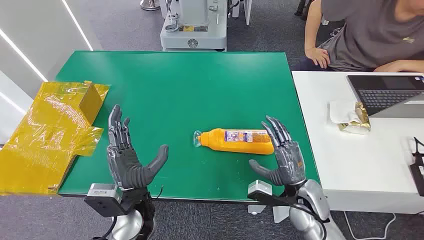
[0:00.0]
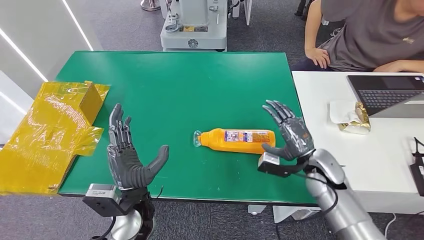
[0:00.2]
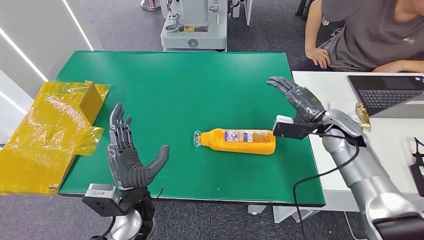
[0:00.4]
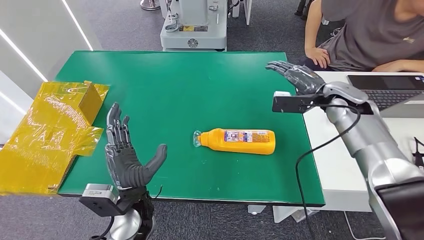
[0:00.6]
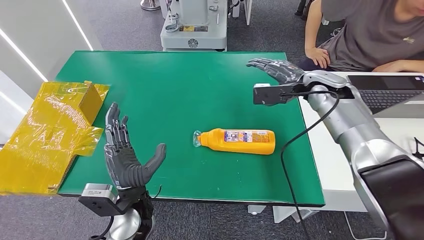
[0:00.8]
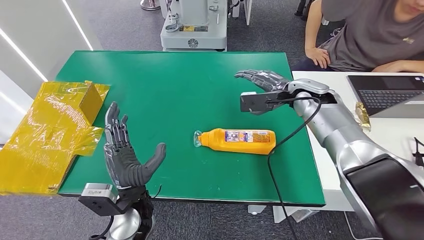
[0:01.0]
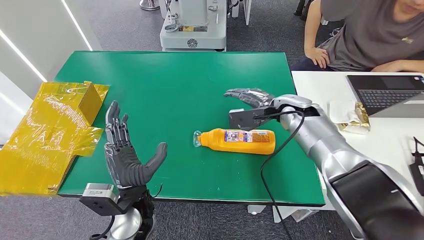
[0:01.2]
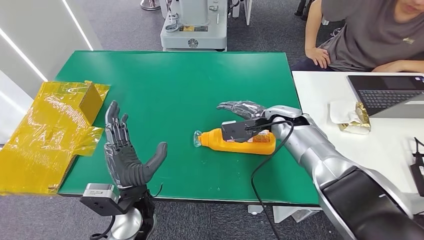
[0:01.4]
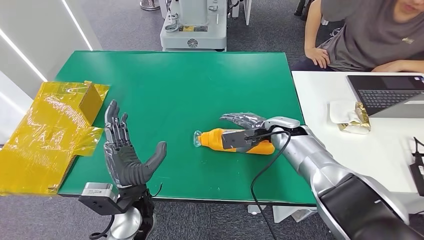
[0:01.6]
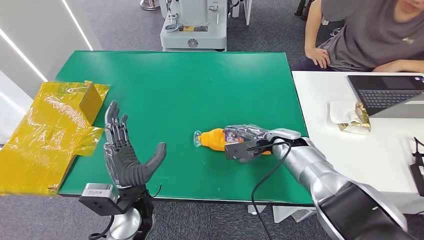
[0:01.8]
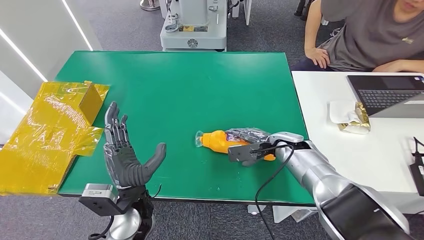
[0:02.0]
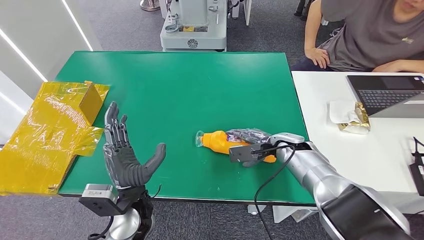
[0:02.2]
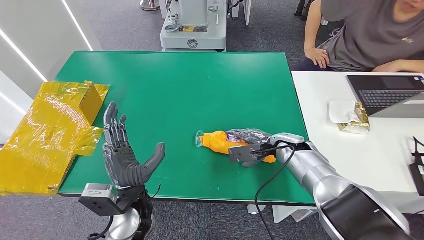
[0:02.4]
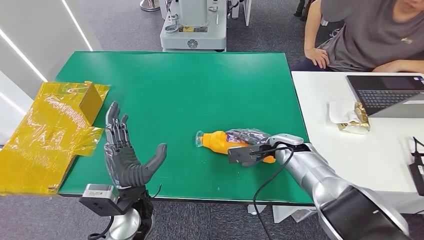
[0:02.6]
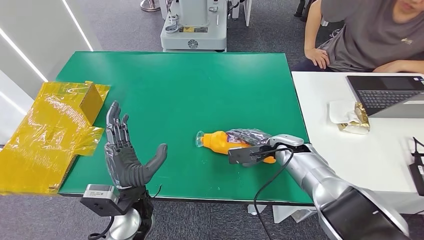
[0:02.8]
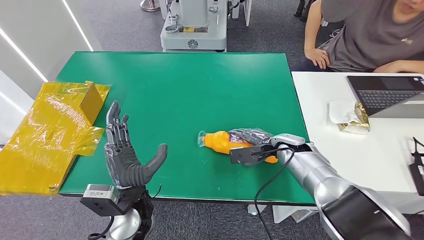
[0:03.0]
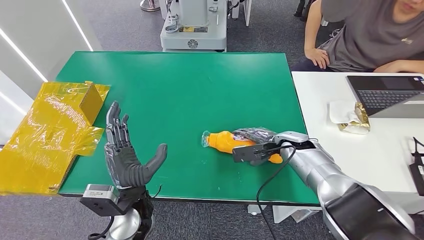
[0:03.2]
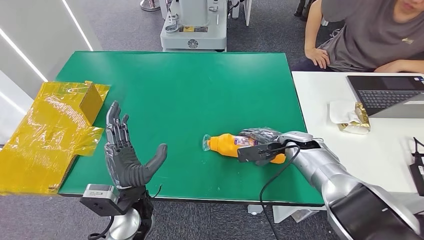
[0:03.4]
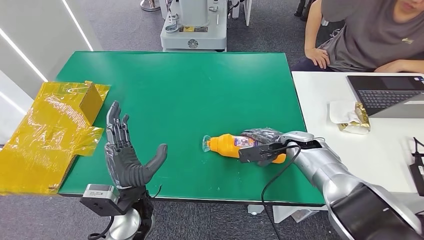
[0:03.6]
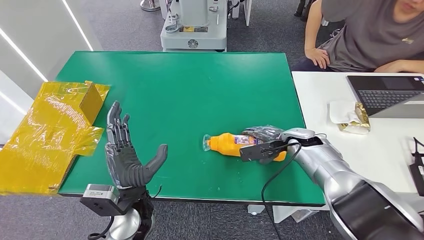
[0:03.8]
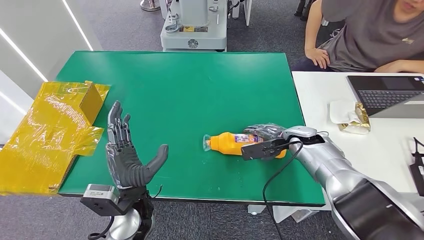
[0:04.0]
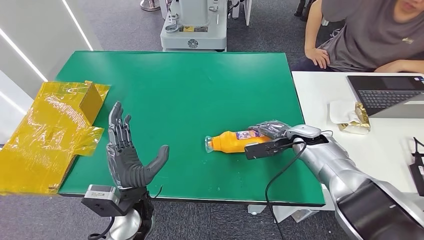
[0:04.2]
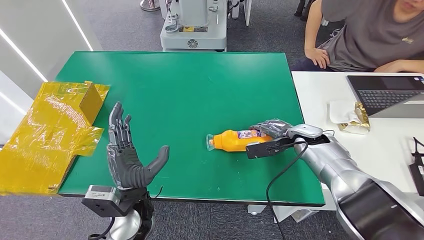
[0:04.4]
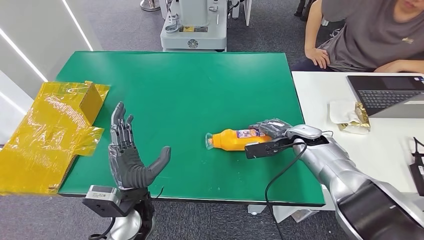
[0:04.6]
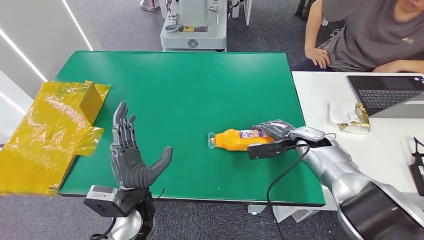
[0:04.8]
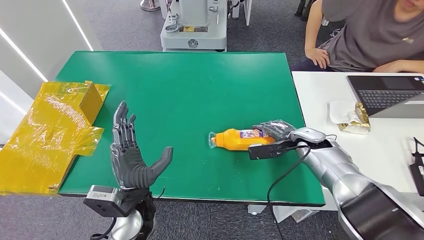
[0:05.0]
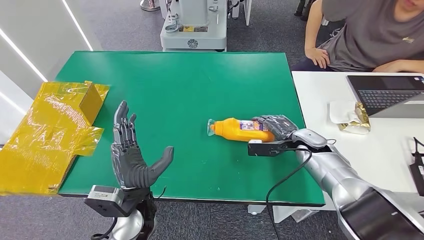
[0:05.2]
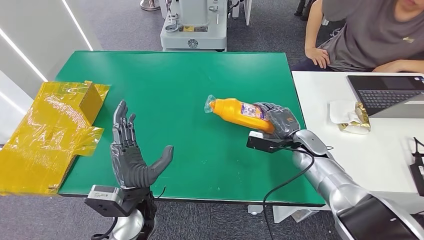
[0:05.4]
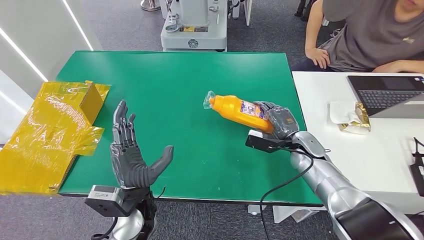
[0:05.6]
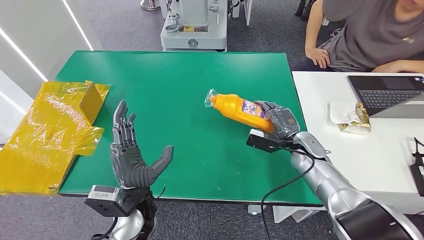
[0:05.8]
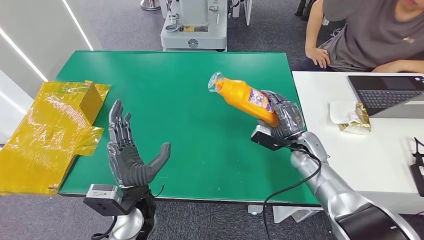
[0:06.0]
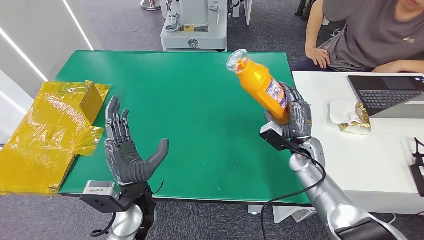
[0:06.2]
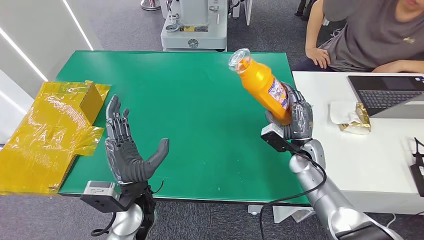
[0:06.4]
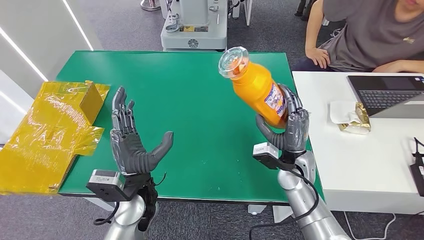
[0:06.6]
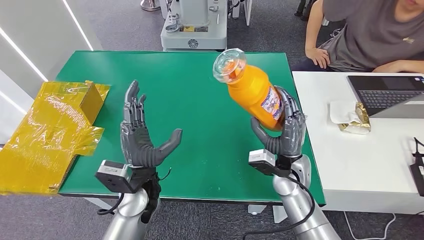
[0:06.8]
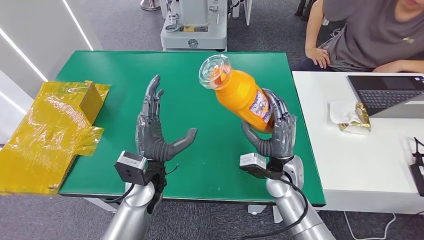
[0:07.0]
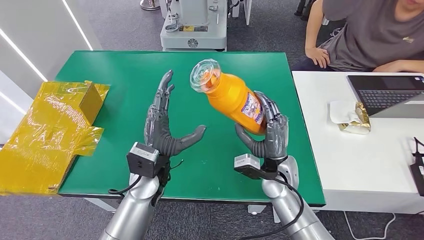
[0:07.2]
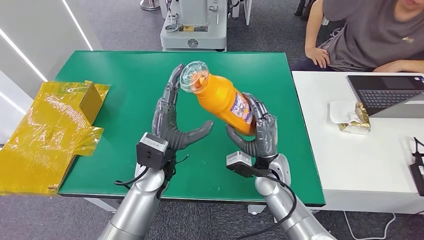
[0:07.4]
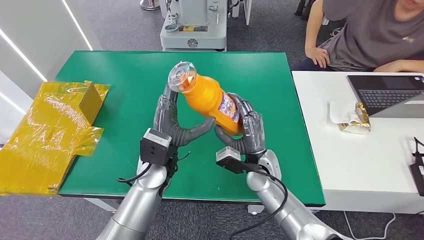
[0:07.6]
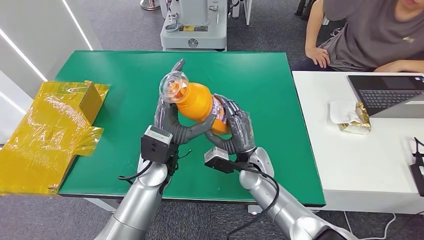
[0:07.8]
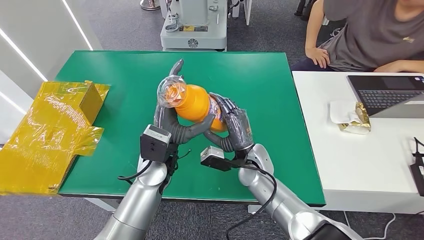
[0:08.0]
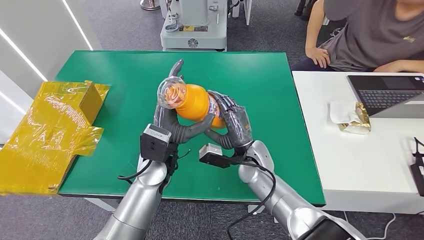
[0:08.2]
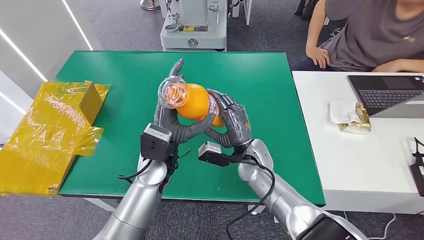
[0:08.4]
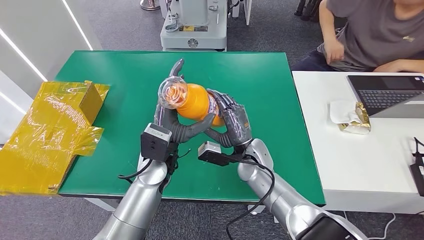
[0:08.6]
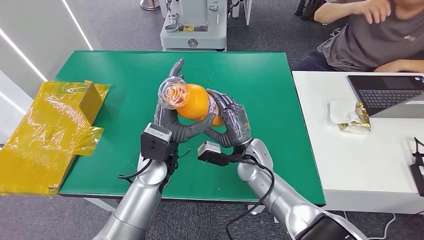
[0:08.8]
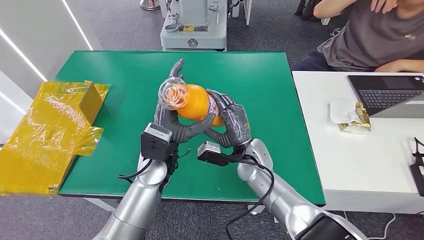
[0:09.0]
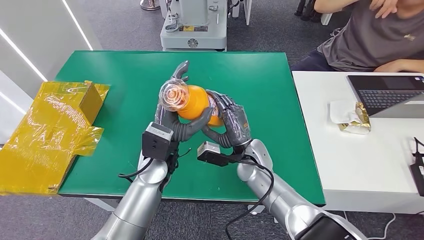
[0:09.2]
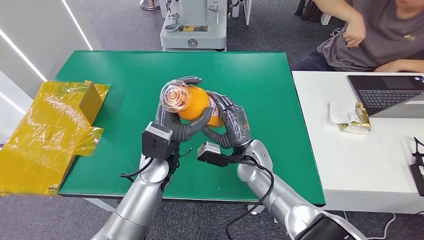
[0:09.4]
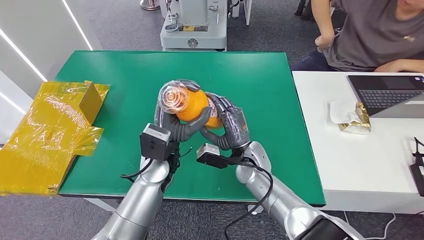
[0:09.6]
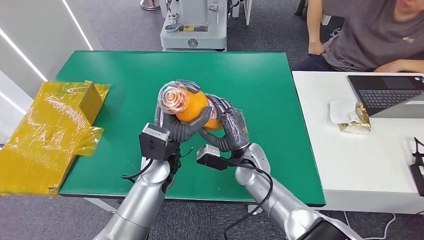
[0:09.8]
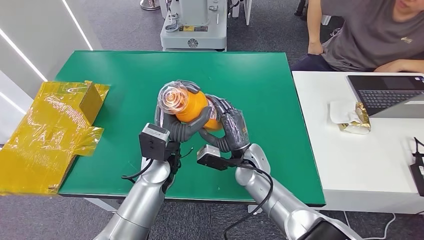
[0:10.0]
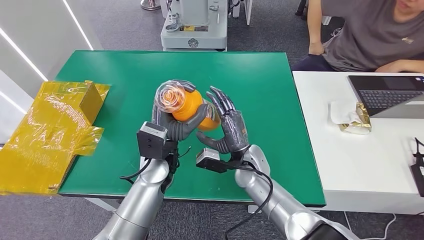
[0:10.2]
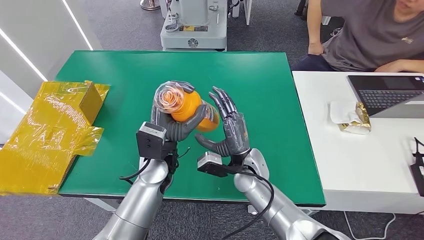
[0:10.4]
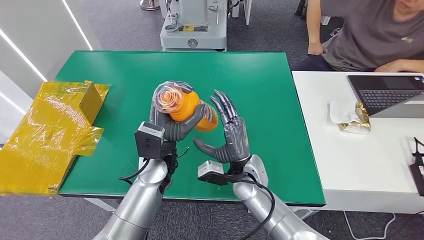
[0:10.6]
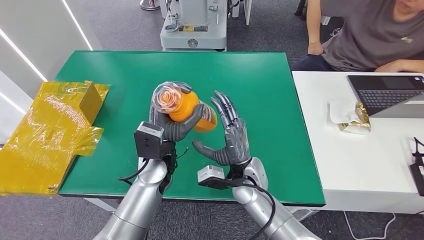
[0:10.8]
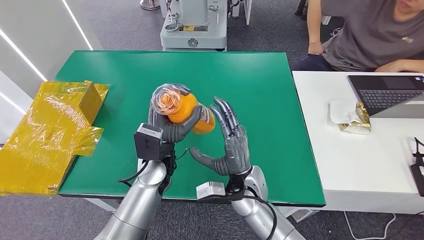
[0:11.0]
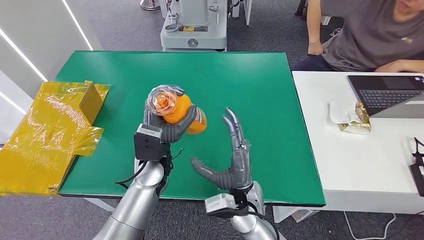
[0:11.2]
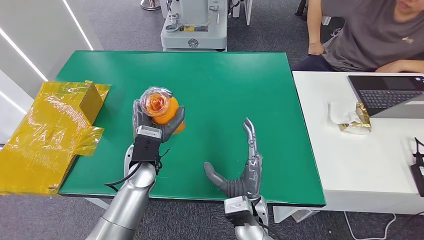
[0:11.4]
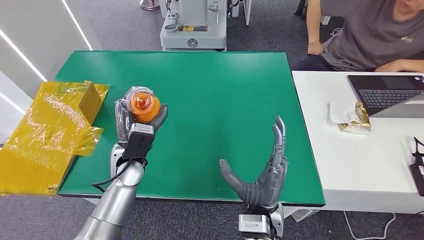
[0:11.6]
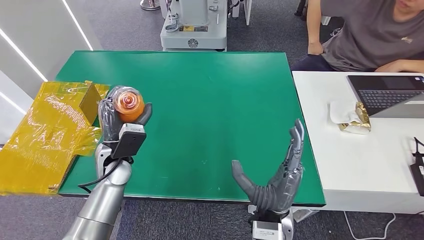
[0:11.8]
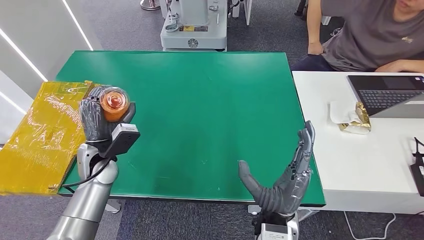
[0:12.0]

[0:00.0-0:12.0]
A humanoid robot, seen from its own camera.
Step, 0:00.0 to 0:06.0: Pick up the bottle from the table.
0:01.6 to 0:03.0: The right hand is displaced downward by roughly 5 cm.
0:03.0 to 0:04.4: The right hand ends up about 5 cm from where it was.
0:07.6 to 0:10.4: The hands move only a little.
0:10.4 to 0:12.0: The right hand is displaced backward by some 15 cm; the left hand heads to the left, covering approximately 15 cm.

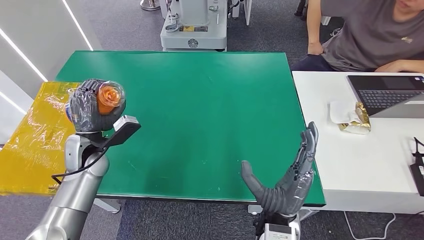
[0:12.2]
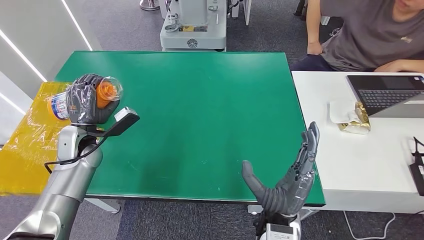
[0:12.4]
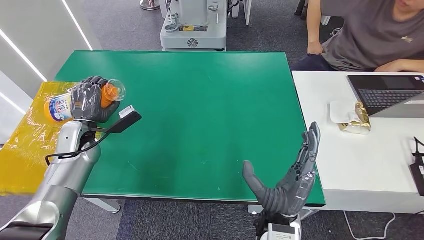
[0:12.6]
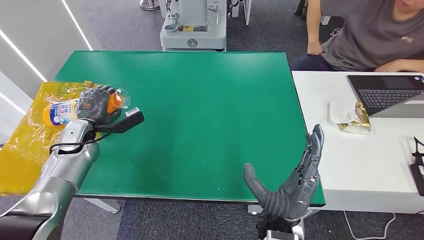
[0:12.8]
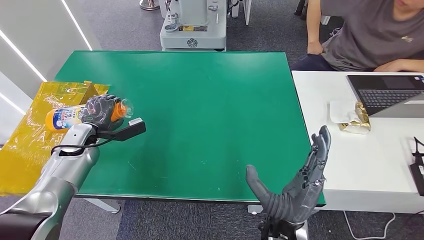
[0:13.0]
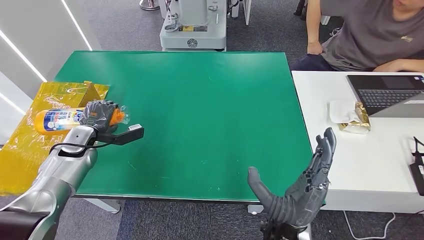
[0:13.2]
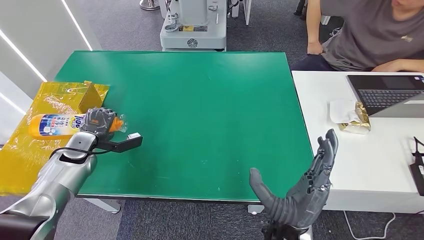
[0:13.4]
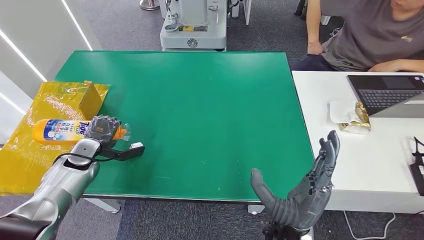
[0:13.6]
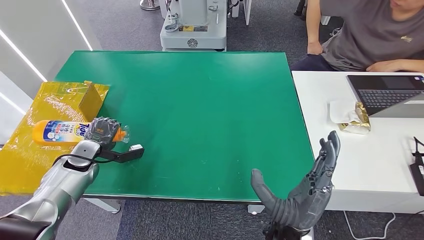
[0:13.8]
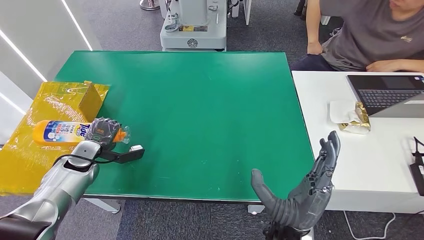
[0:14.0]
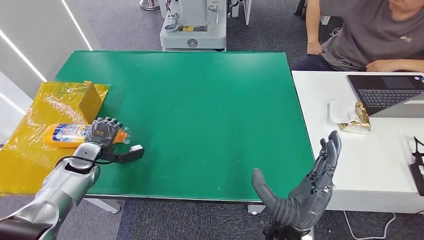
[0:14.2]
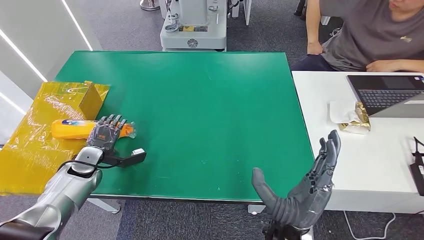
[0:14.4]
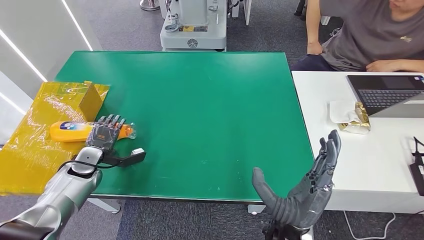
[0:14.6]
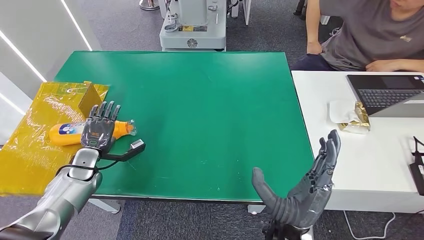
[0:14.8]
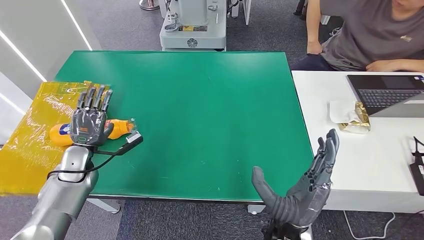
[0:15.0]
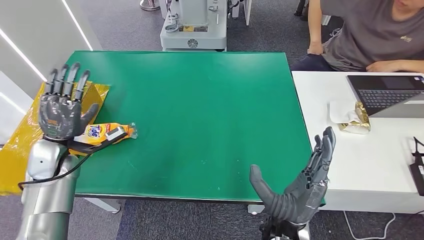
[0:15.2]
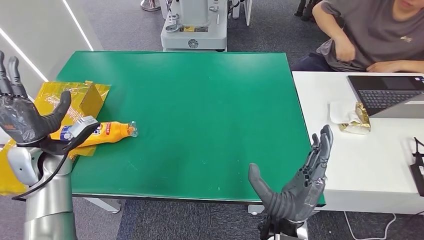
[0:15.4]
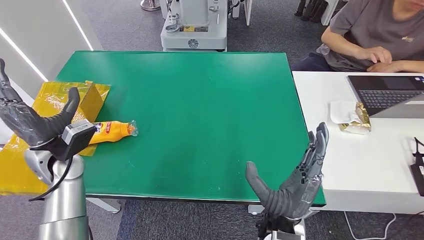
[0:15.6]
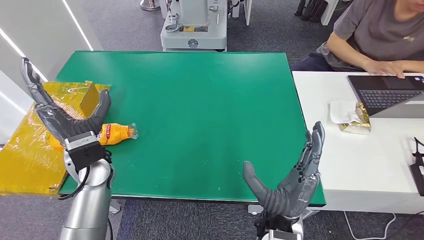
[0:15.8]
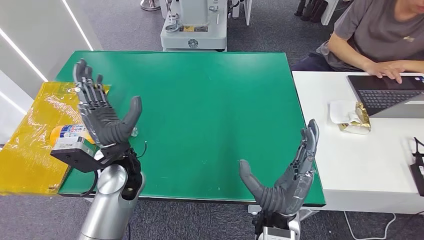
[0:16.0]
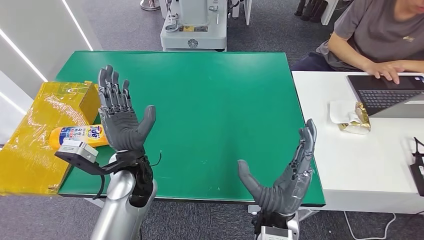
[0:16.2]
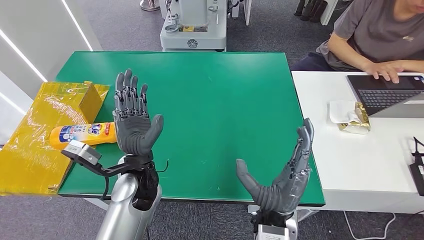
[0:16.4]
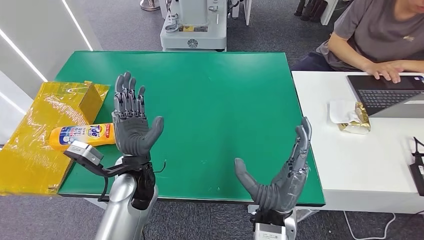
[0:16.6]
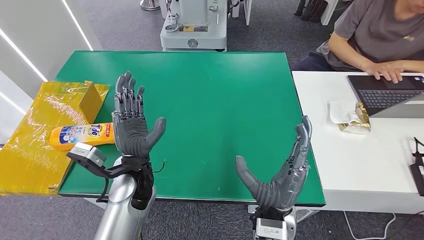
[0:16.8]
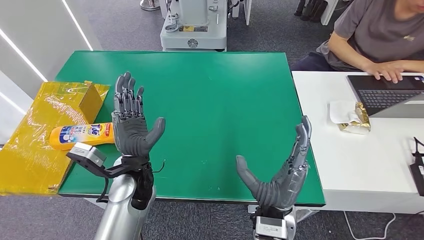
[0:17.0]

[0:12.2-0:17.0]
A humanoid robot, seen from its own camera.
Step, 0:12.2 to 0:17.0: Turn the bottle to the front side.
0:12.2 to 0:13.8: The left hand moves to the left and downward, about 10 cm.
0:13.8 to 0:15.4: The left hand heads upward, covering approximately 10 cm.
0:15.4 to 0:17.0: The left hand heads to the right, covering some 25 cm.
